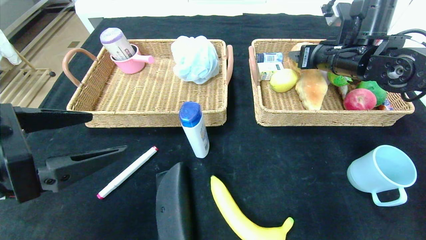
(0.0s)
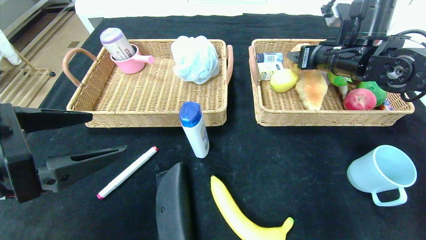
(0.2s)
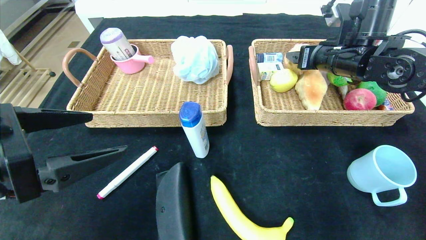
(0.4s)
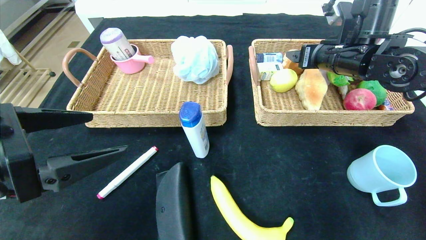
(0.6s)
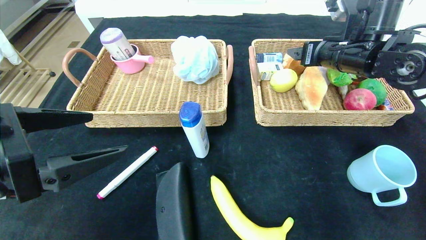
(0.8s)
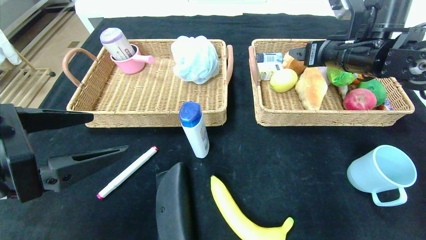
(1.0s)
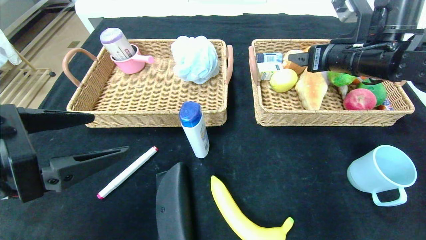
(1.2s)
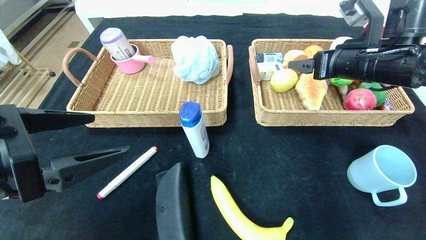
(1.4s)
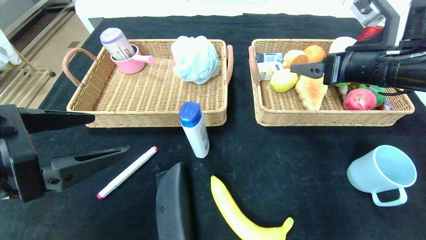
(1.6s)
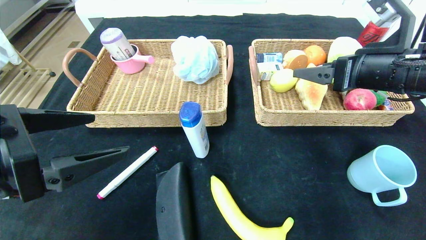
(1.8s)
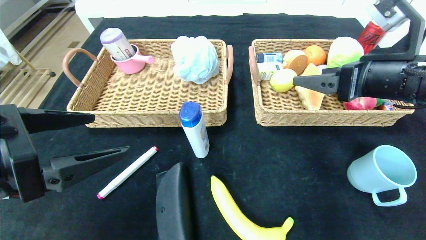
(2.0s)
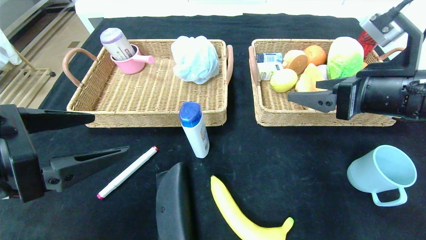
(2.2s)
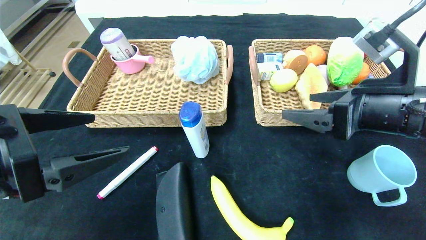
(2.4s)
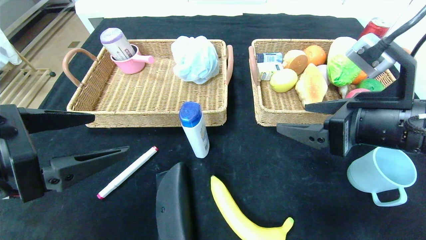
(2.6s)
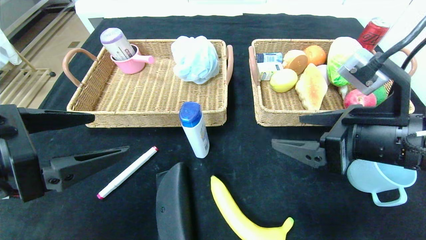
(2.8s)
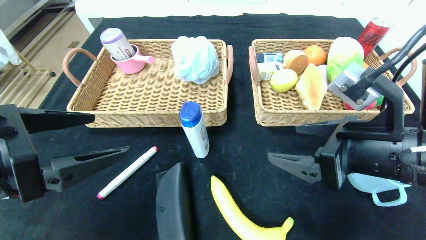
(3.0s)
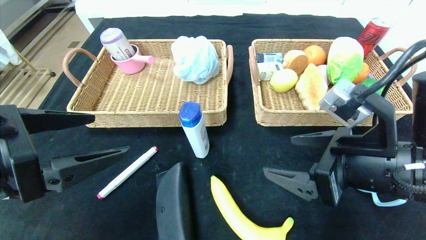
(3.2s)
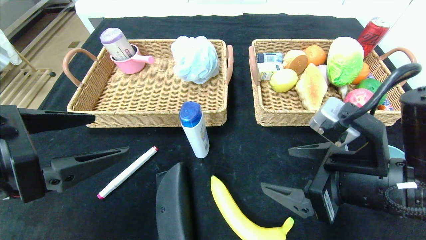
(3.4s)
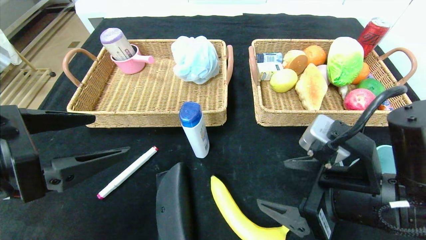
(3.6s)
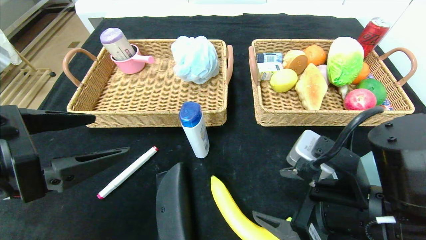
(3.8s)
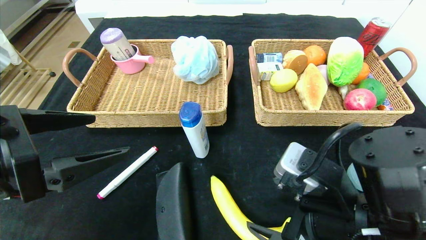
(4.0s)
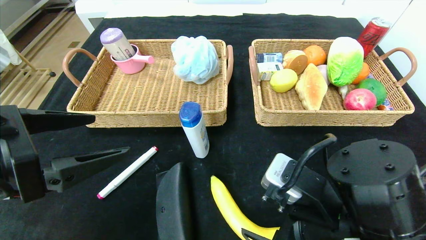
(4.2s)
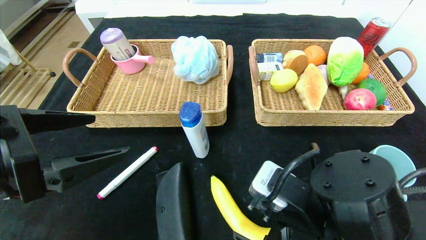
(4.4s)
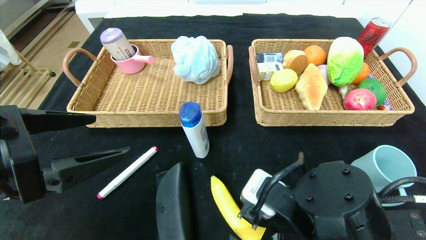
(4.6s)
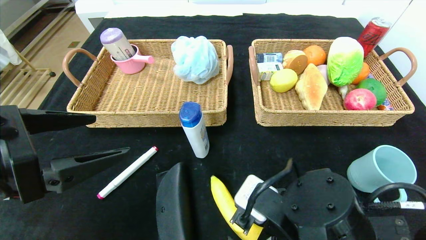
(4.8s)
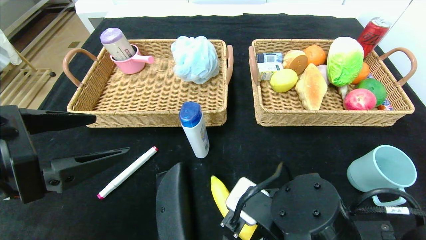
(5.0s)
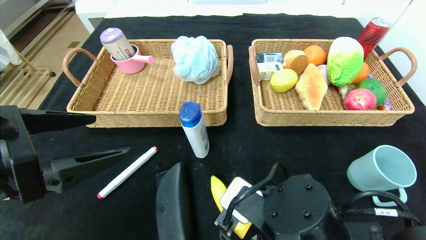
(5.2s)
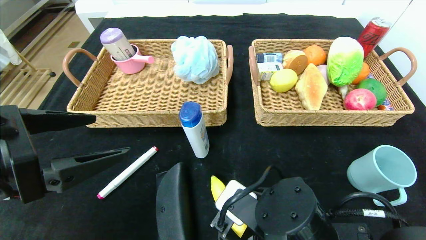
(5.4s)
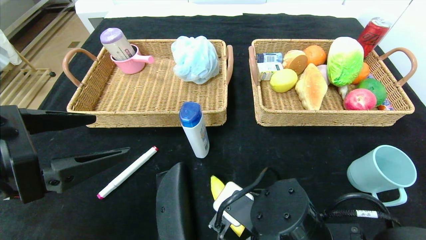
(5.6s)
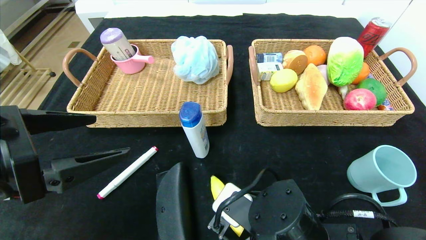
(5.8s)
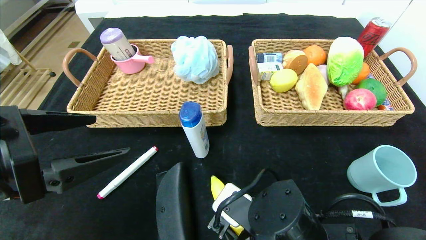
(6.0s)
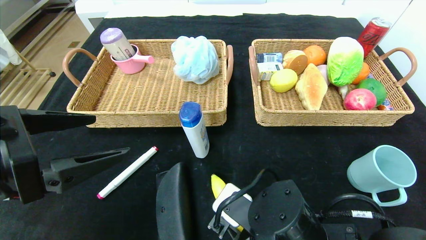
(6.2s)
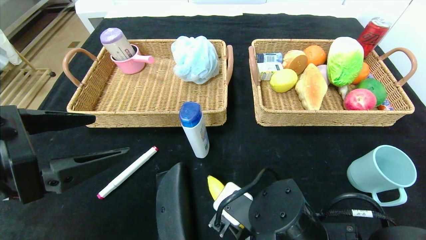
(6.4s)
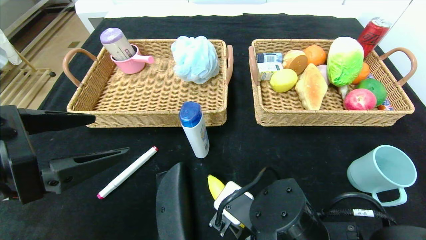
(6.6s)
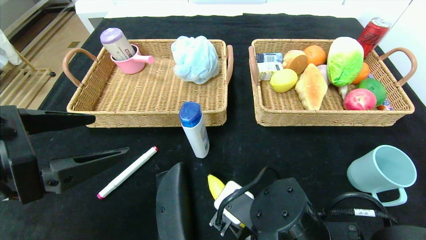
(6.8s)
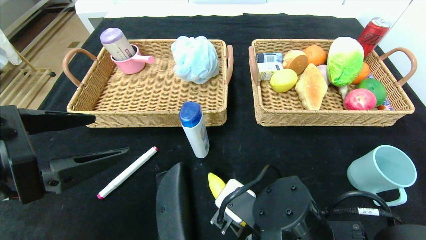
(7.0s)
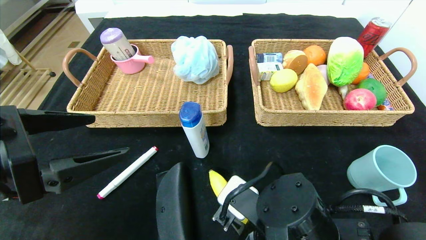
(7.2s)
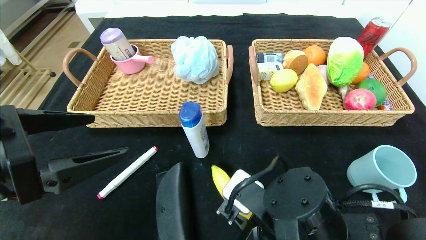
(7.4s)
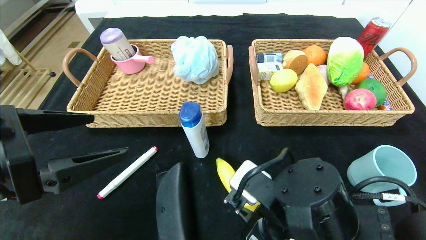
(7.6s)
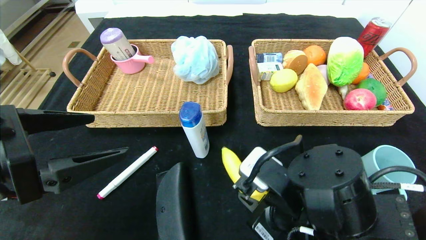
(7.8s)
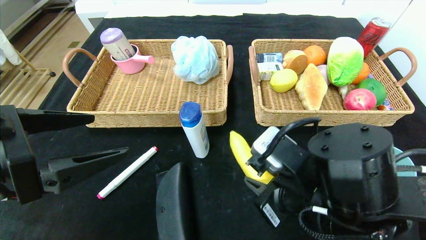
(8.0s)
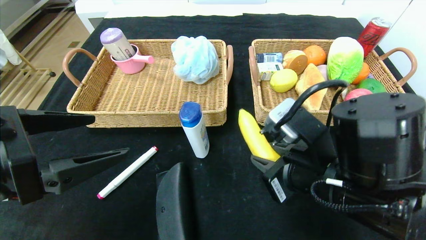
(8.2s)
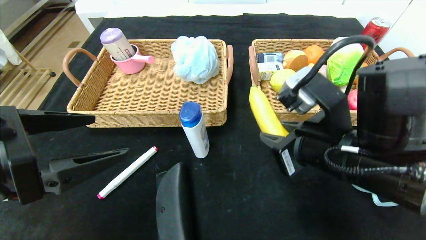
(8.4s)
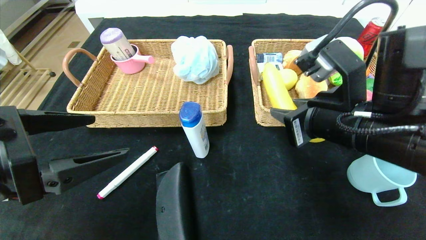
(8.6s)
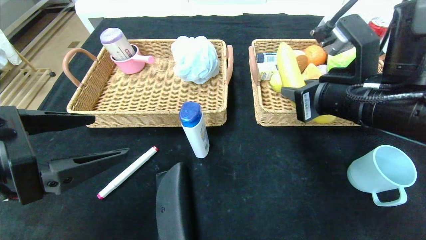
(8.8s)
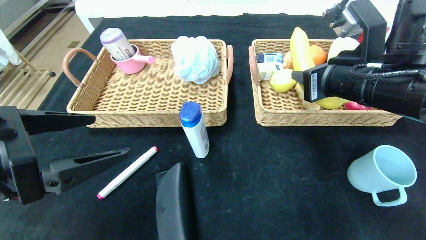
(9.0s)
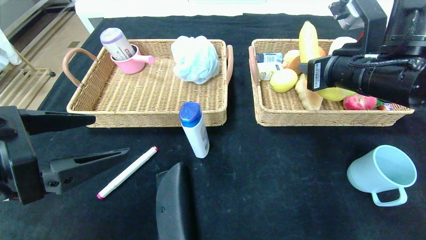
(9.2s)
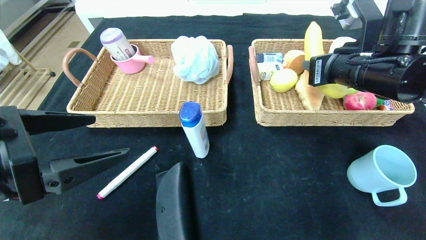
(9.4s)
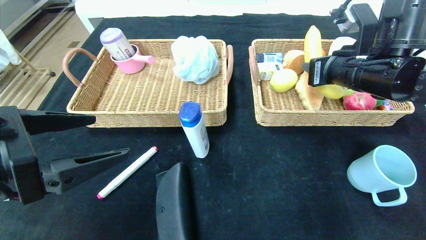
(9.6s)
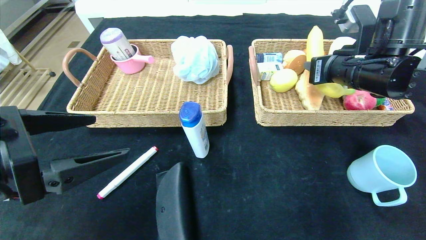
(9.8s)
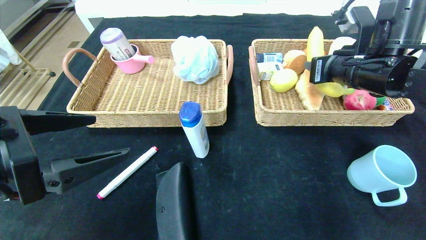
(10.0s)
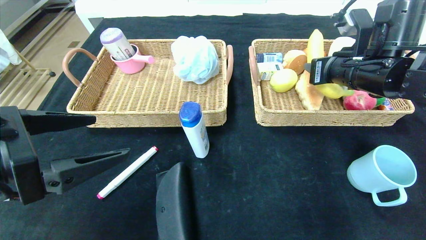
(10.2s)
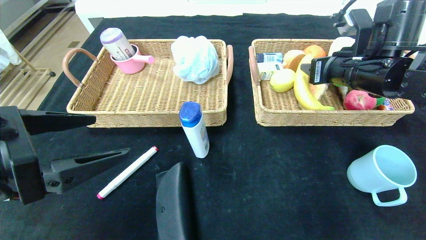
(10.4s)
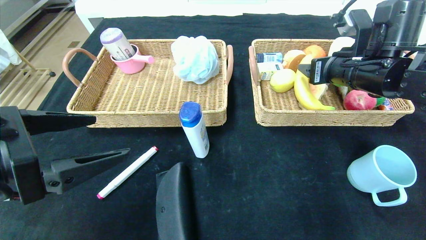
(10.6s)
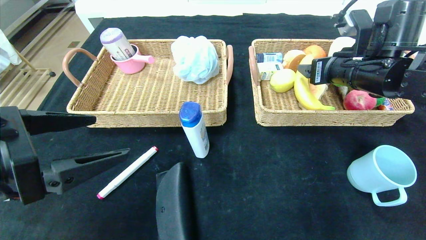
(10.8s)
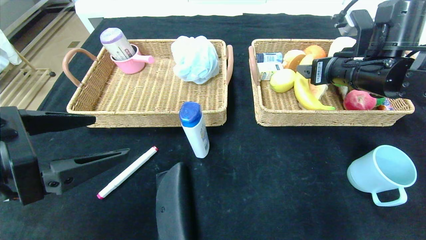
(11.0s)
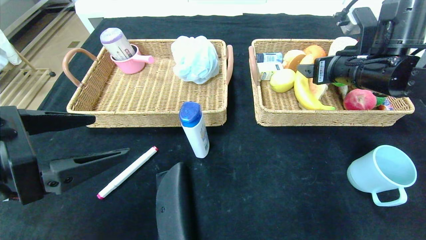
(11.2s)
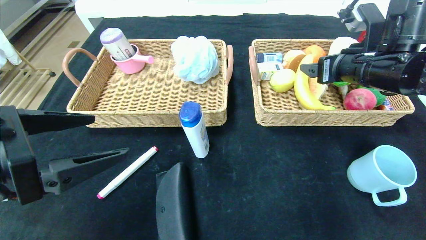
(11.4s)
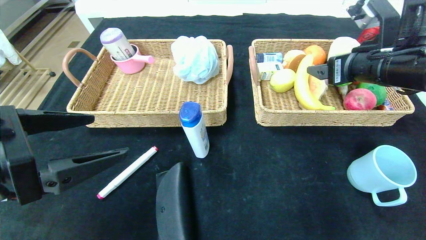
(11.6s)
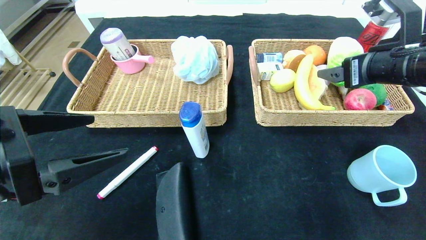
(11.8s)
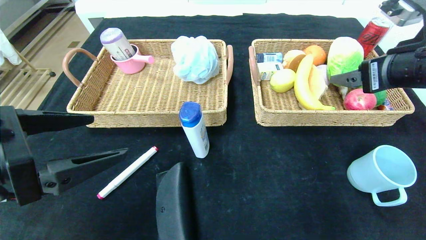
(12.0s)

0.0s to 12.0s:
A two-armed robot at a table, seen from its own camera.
Step, 1.8s to 11.6s: Grasp the banana and put it in the right basket.
0.0s to 1.6s: The right gripper goes roughly 10 cm backward.
1.6s to 3.0s: The right gripper shifts approximately 15 cm backward, downward and to the left.
3.0s to 4.4s: The right gripper shifts approximately 10 cm downward and to the left.
4.4s to 6.0s: The right gripper moves roughly 5 cm, and closes.
6.0s to 7.6s: The grippers make only small movements.
7.6s to 9.0s: The right gripper heads upward, forward and to the right, covering approximately 20 cm.
9.0s to 10.4s: The right gripper shifts approximately 10 cm forward.
10.4s to 12.0s: The right gripper shifts roughly 10 cm backward, and opens up.

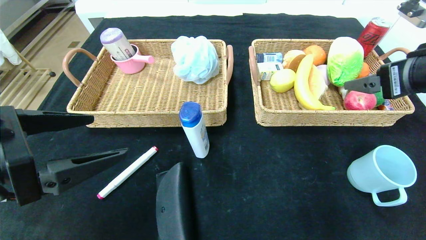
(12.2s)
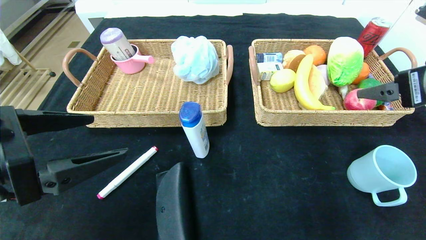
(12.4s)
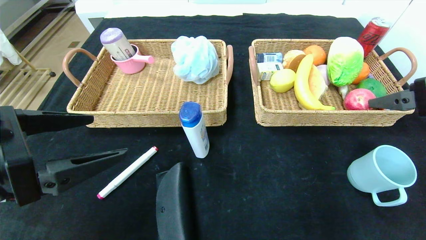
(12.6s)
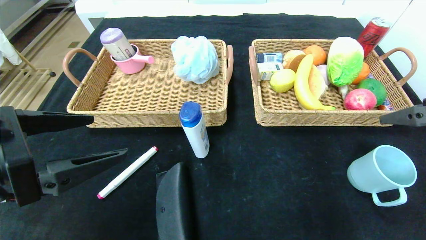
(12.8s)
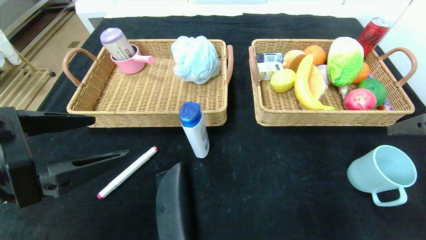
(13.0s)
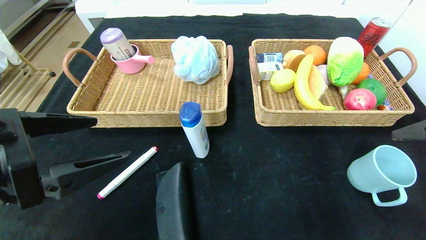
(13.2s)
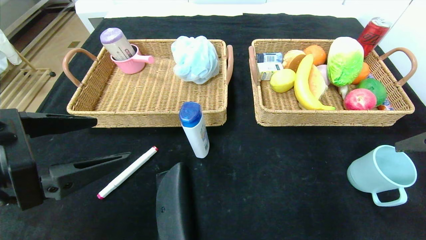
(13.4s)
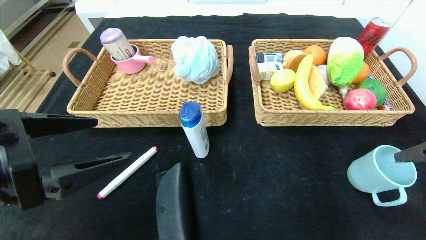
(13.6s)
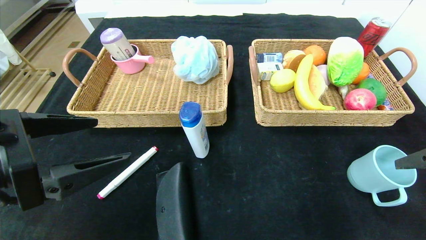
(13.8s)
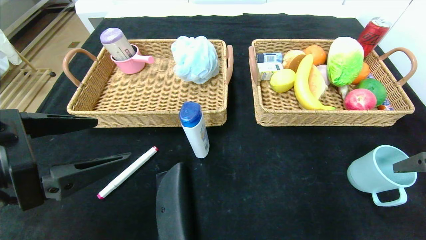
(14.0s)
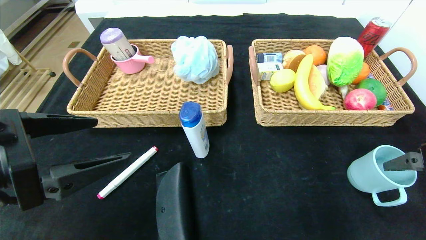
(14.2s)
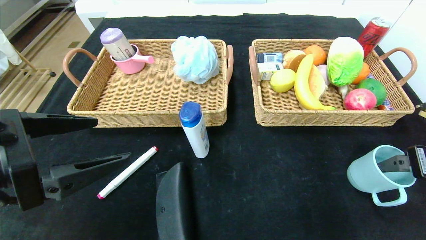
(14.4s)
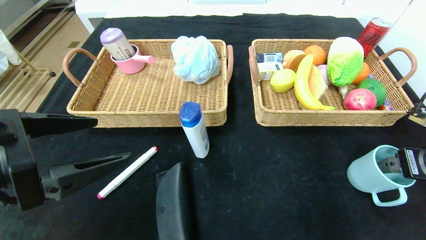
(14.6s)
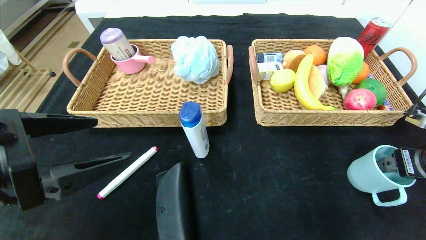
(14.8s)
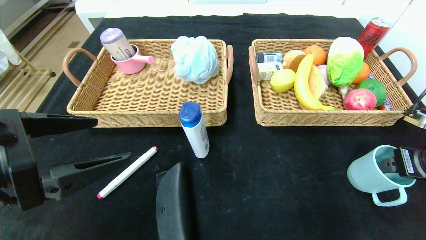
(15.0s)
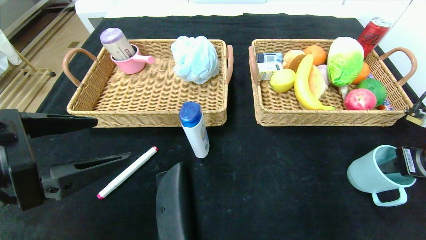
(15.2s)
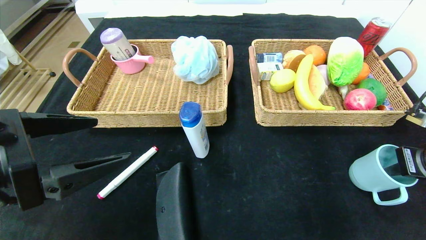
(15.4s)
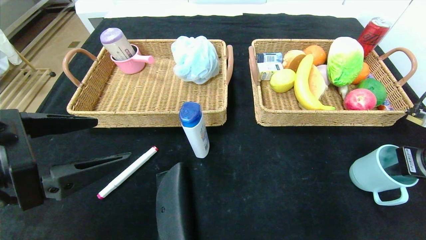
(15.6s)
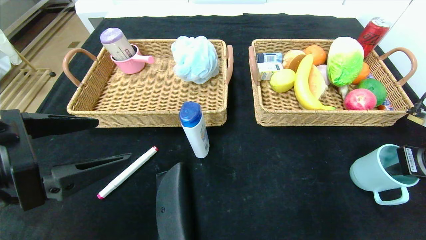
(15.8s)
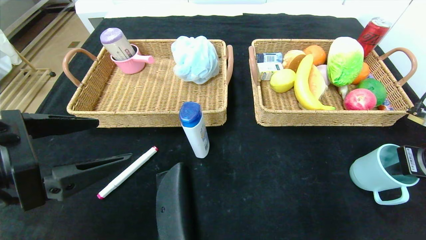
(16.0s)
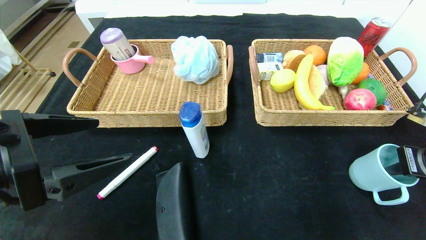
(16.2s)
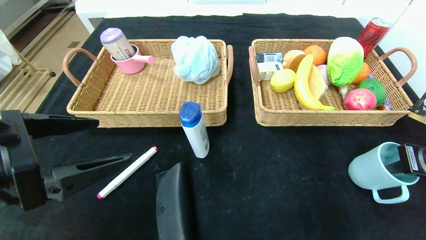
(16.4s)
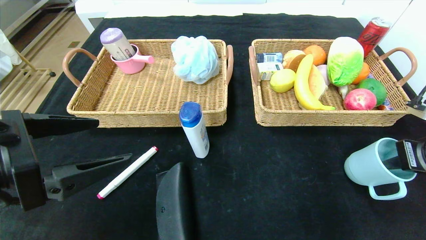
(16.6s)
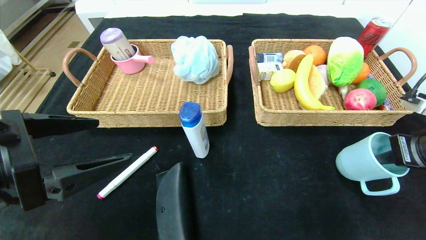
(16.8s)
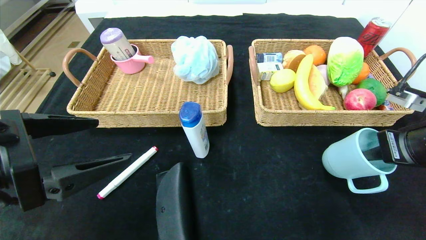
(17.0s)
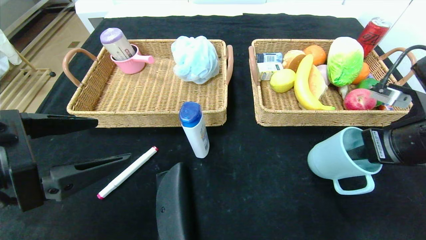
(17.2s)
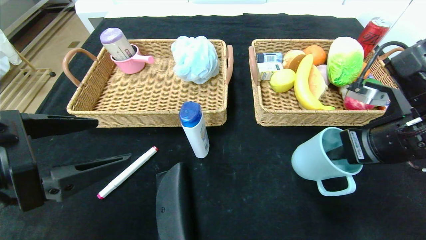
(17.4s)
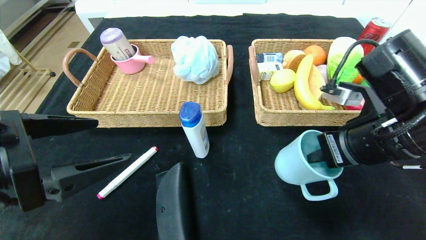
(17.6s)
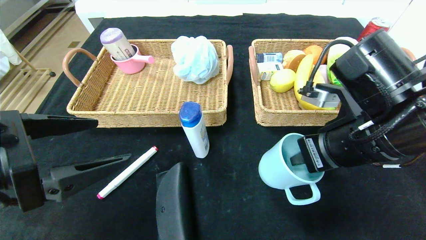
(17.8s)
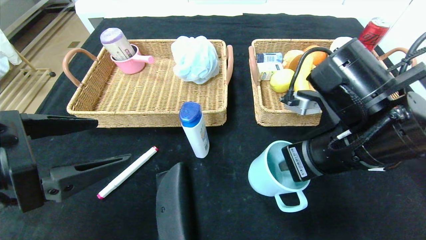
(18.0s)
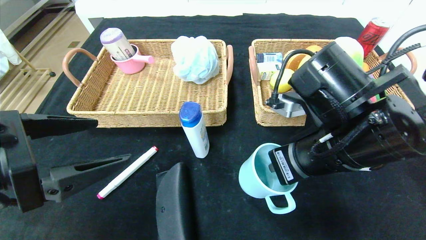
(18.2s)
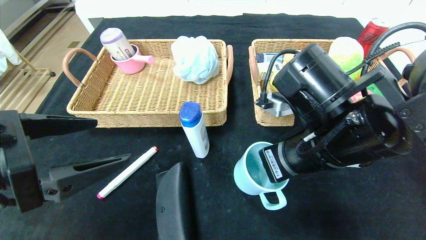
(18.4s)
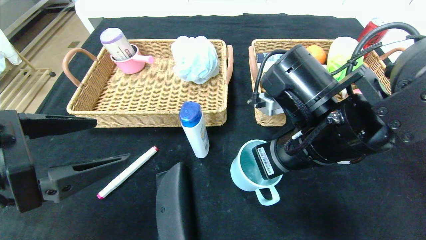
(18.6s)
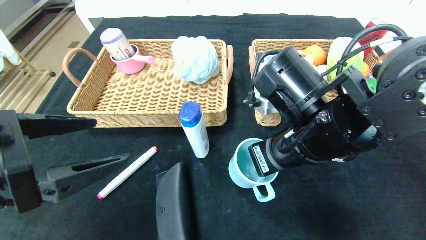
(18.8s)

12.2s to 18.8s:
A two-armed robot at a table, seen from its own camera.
12.2s to 13.8s: The right gripper travels backward, to the right and downward by about 10 cm.
13.8s to 15.4s: The right gripper heads downward and forward, covering some 10 cm, and closes.
15.4s to 17.2s: The right gripper heads to the left, covering roughly 10 cm.
17.2s to 18.8s: The right gripper heads to the left, covering approximately 15 cm.
